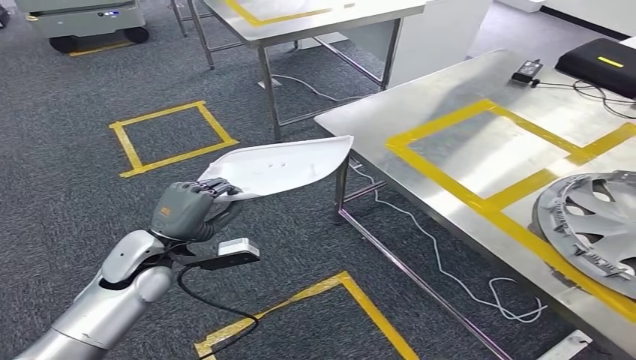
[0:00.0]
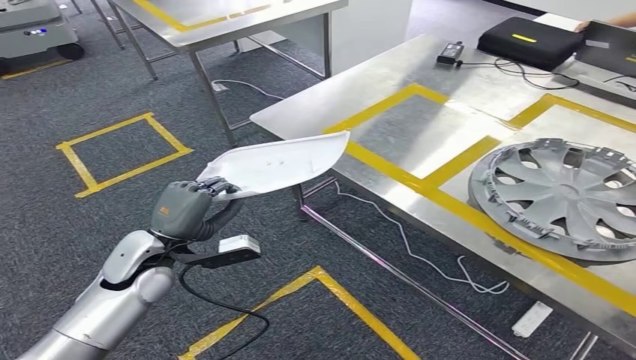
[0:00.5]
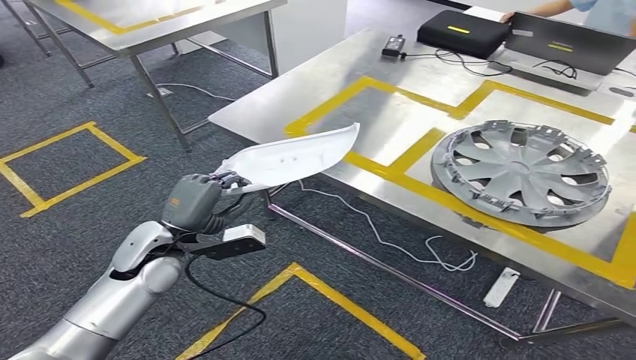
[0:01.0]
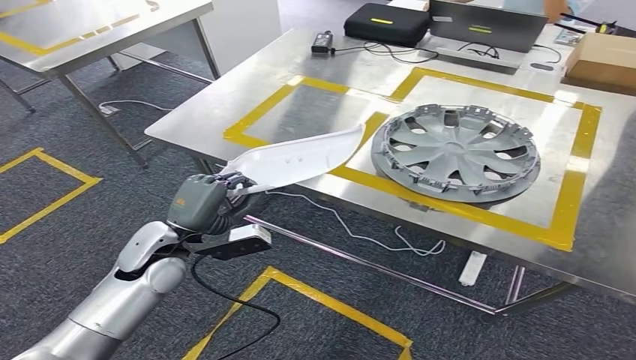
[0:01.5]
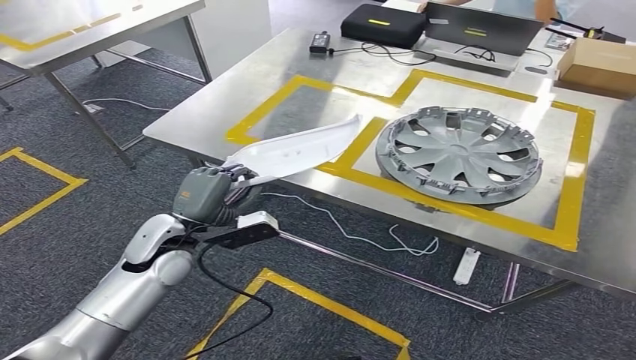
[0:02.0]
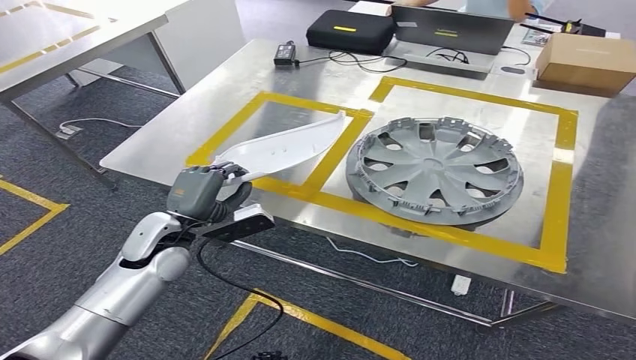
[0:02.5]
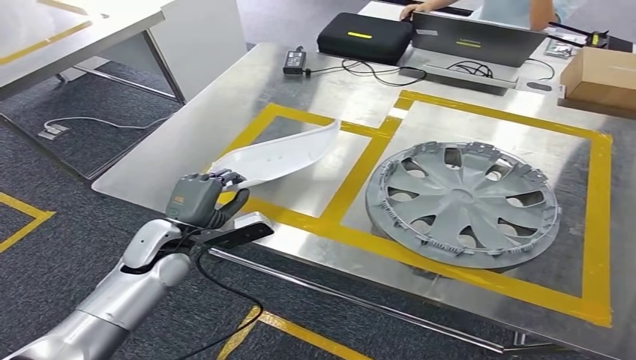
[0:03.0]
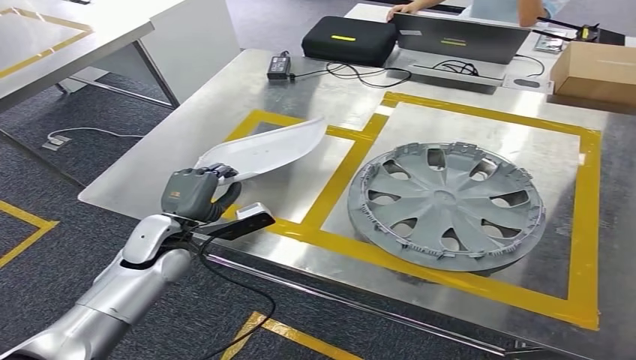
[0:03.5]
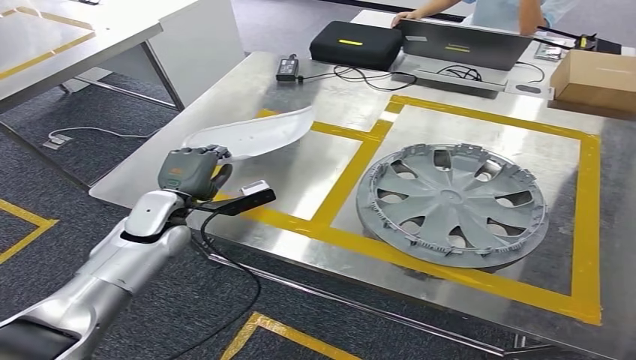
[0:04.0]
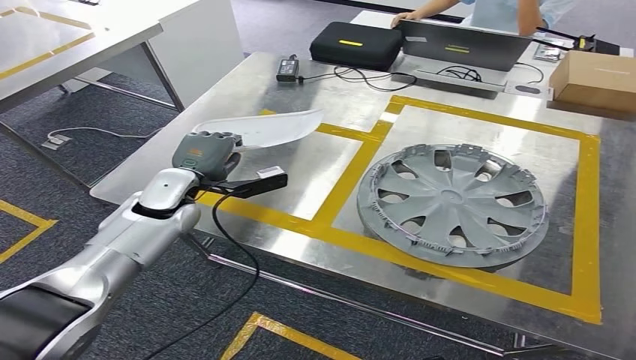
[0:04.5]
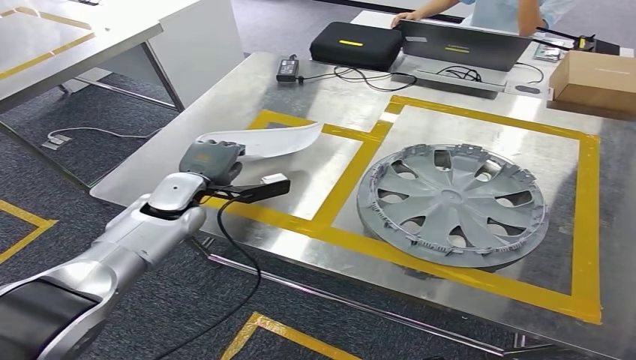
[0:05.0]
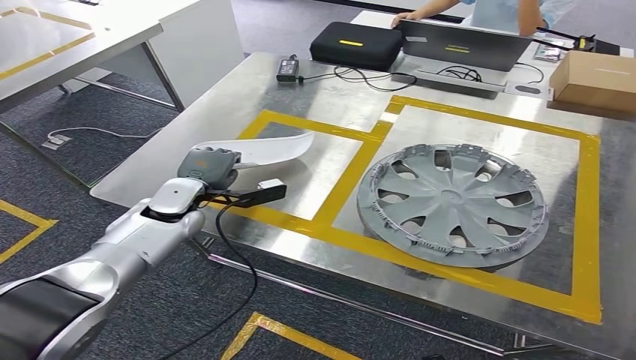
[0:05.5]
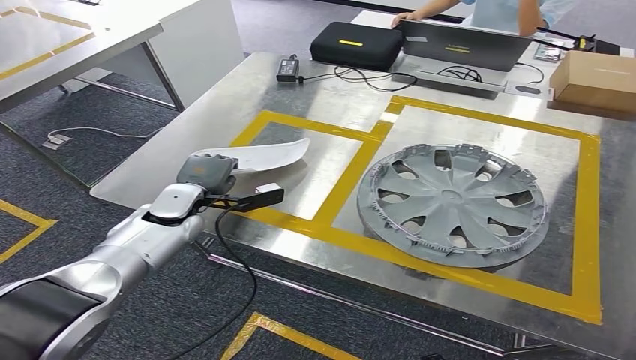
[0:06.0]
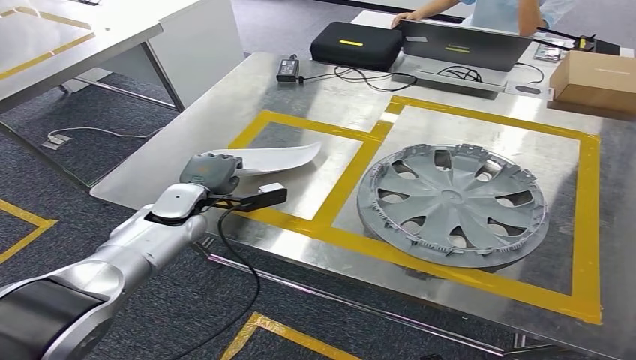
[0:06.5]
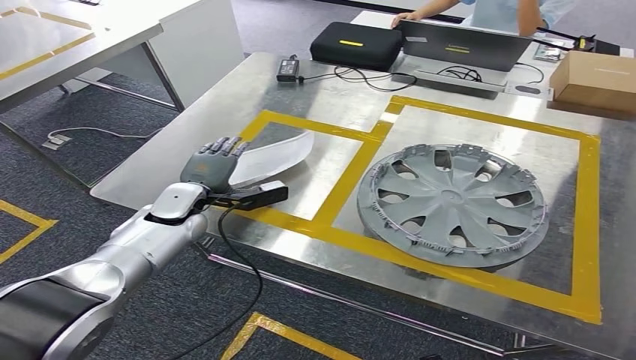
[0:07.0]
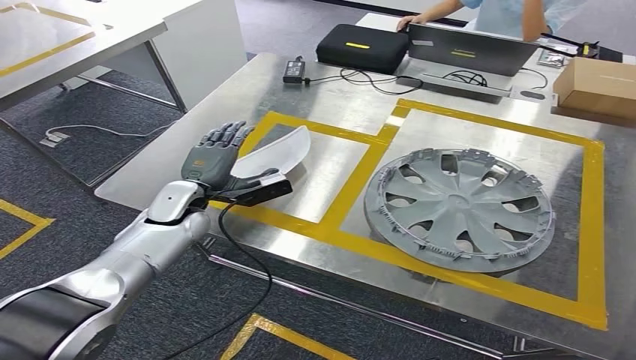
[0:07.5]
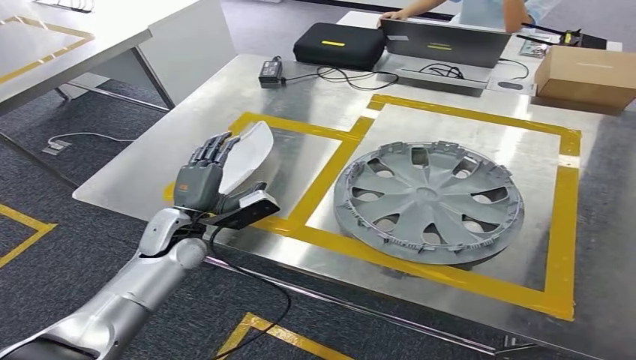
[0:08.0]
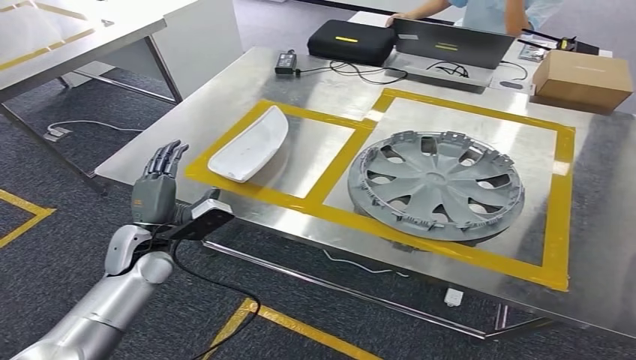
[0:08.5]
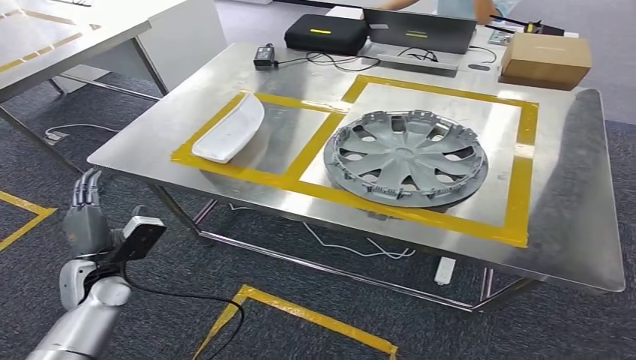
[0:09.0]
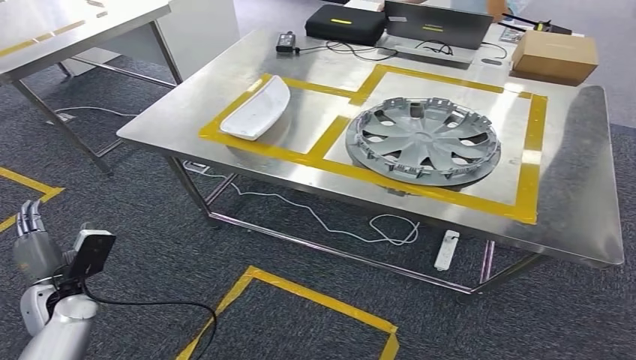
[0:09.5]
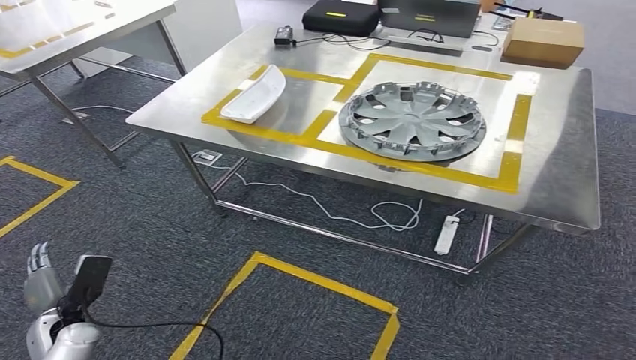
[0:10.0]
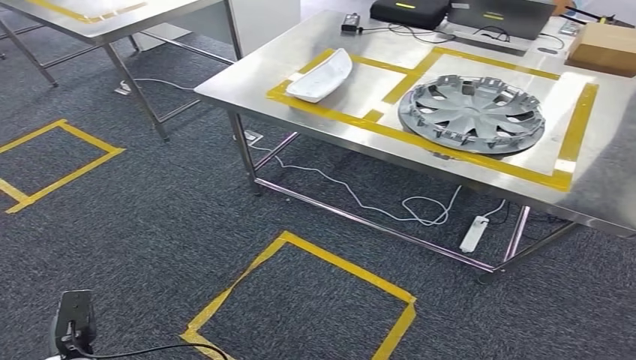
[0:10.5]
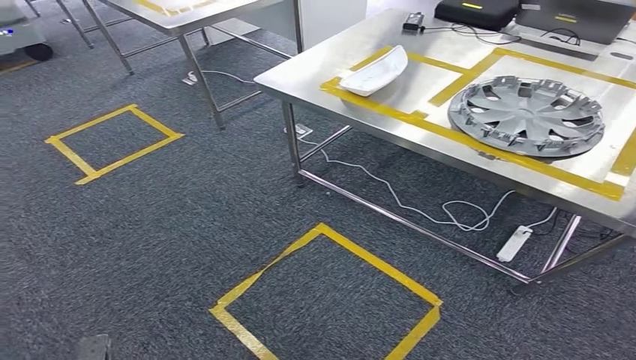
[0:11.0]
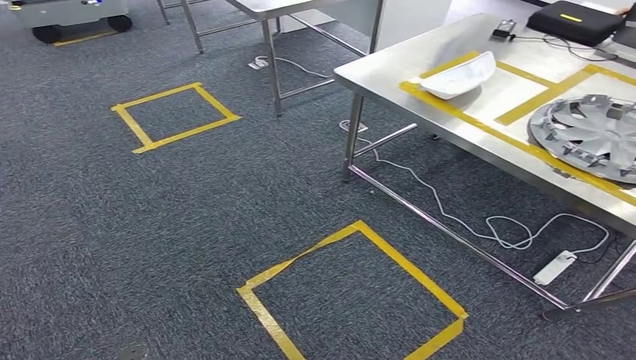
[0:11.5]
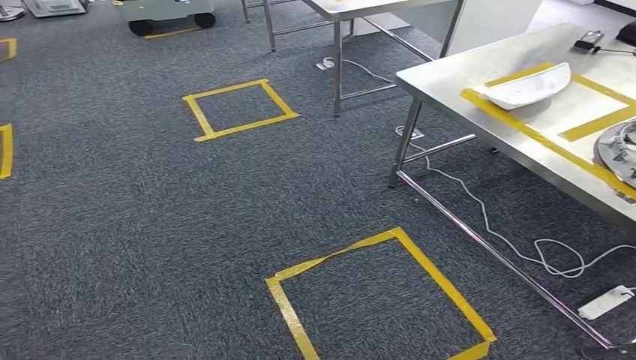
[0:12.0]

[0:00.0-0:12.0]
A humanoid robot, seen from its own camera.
Step, 0:00.0 to 0:02.0: Move the small component to the workbench.
Step, 0:02.5 to 0:08.5: Insert the small component into the corresponding slot on the workbench.

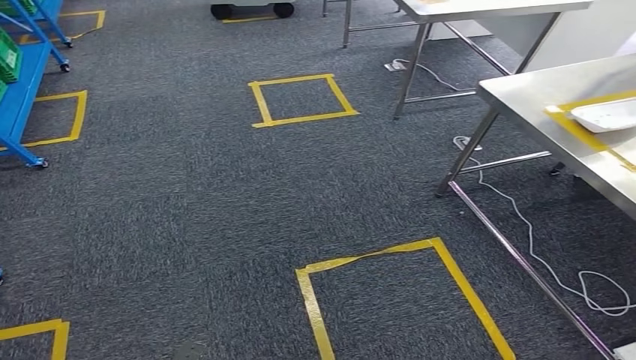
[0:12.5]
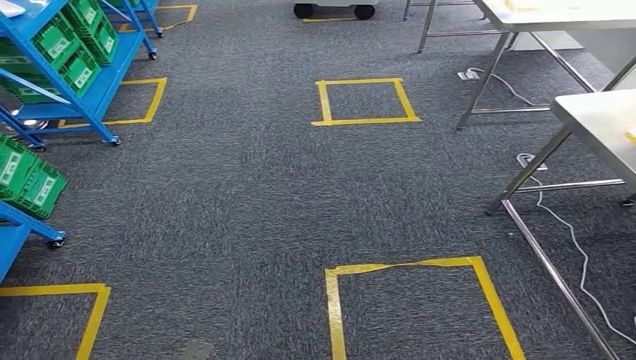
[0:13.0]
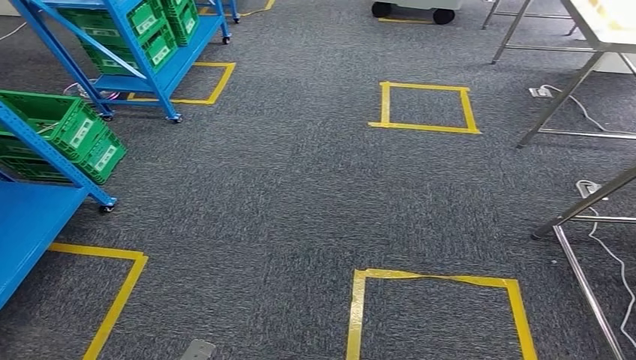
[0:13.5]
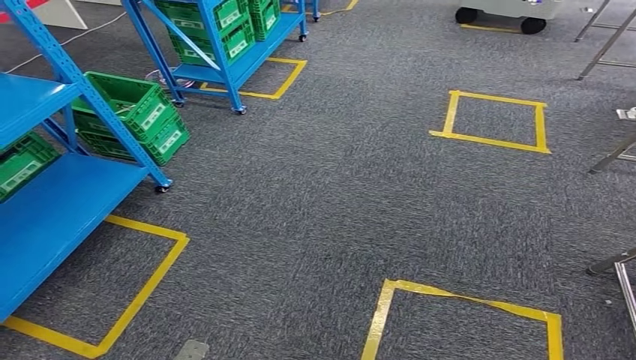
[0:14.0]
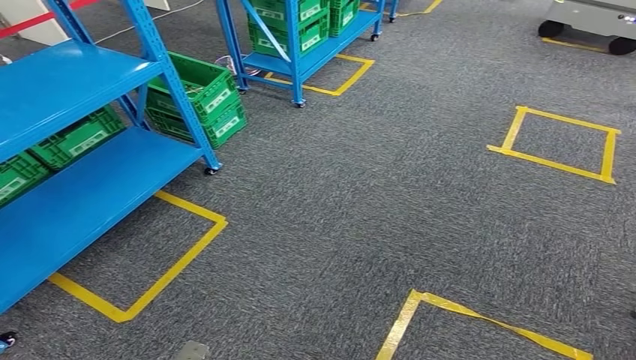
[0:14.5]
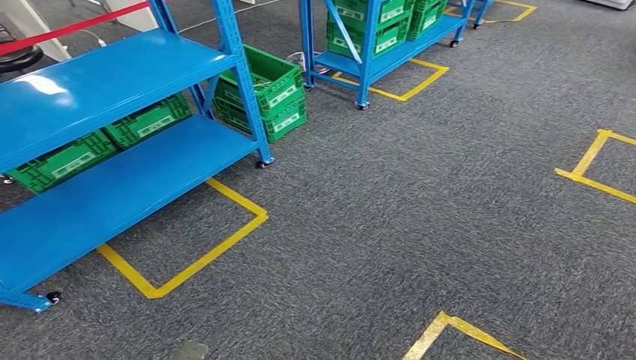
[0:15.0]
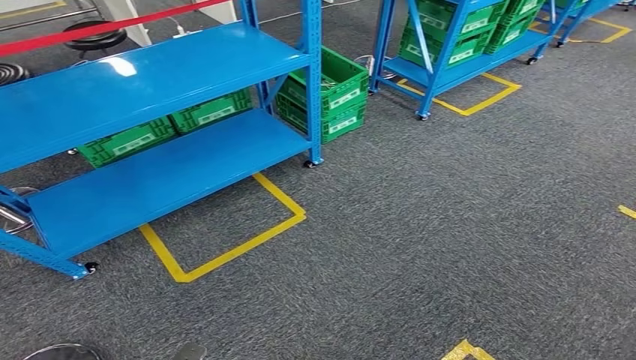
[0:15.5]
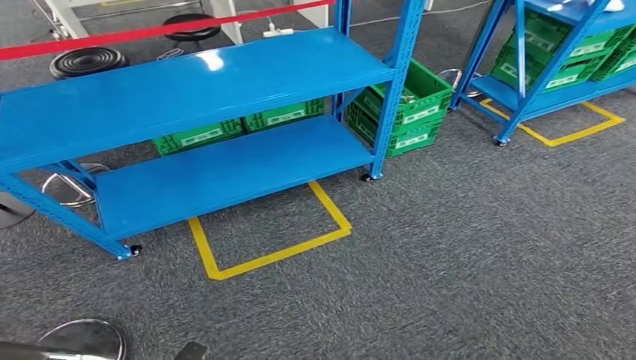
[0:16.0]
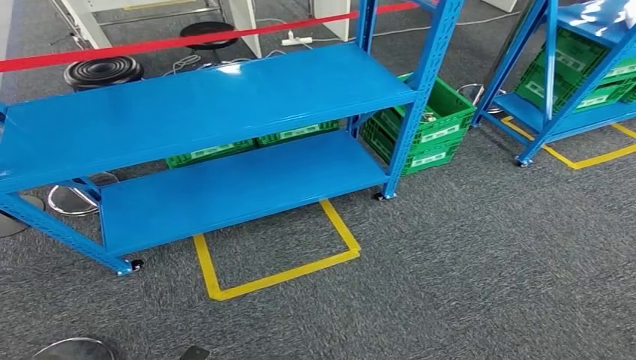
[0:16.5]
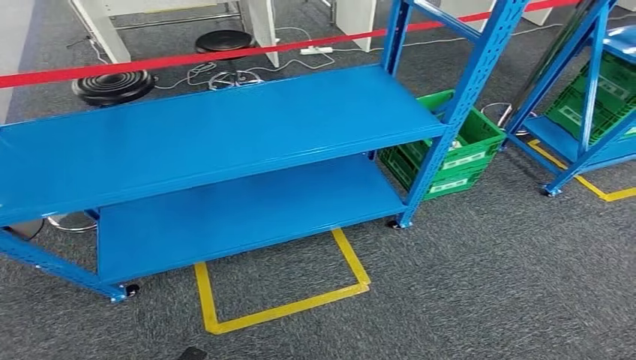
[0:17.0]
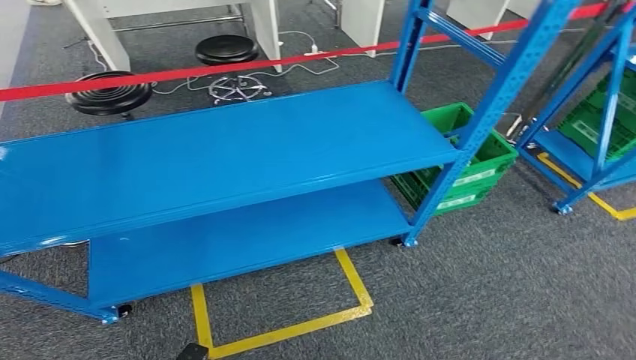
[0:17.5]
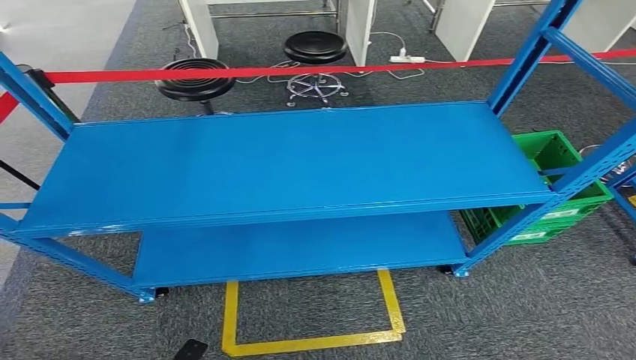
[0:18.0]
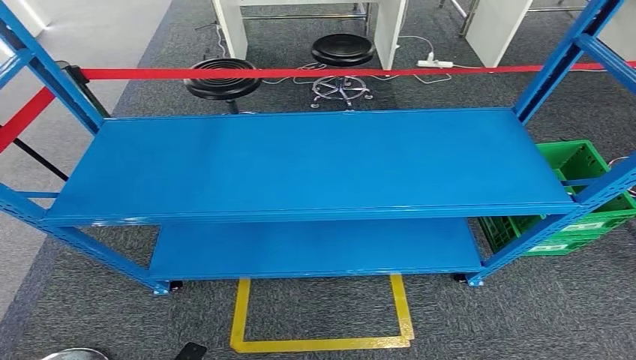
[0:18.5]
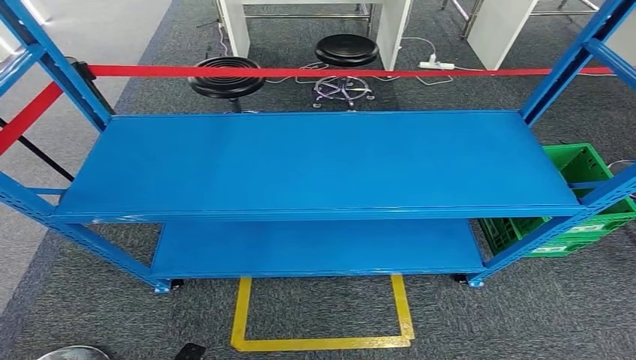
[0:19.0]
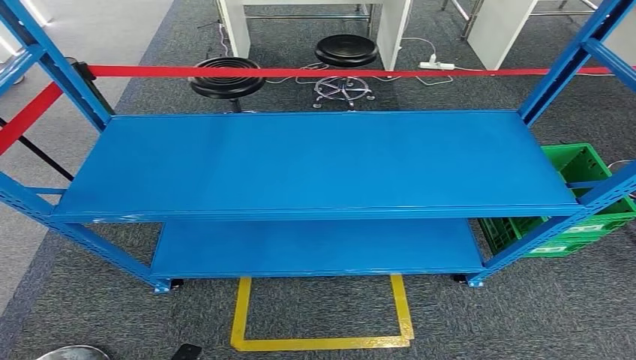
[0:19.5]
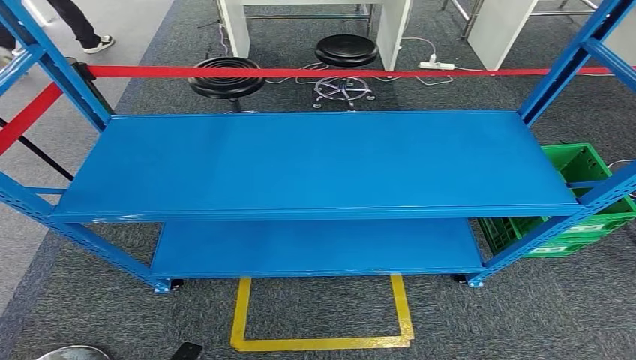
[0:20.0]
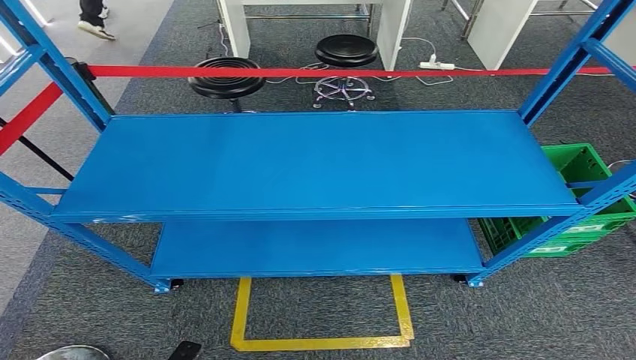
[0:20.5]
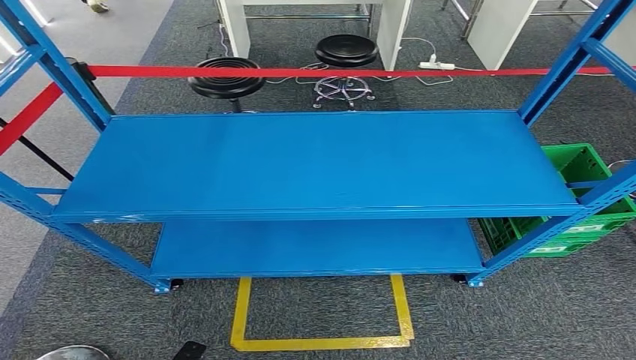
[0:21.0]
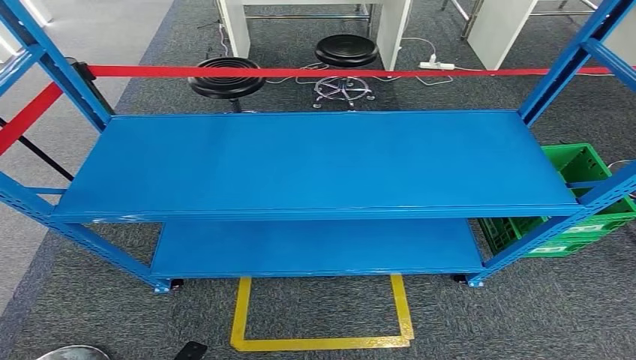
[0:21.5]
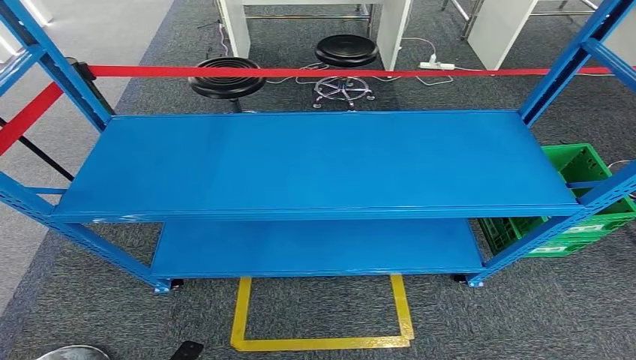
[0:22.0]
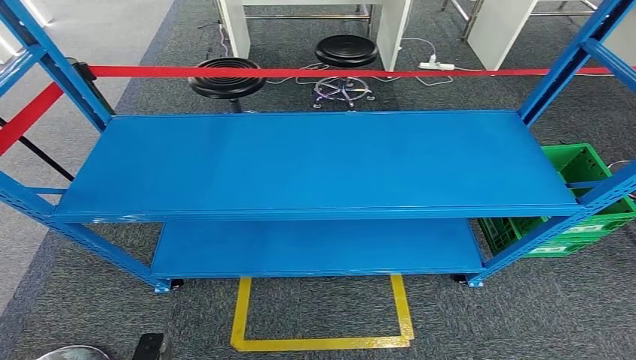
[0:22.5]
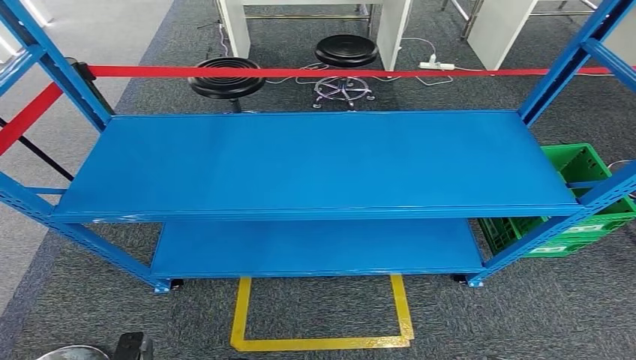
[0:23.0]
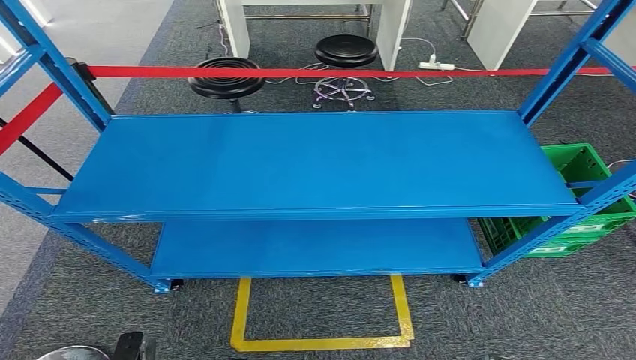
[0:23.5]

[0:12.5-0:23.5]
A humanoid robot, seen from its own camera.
0:20.0 to 0:21.5: There are only small adjustments of the hands.
